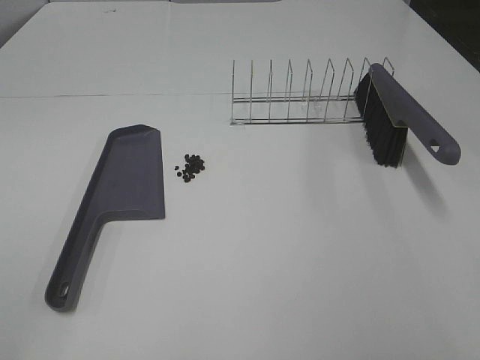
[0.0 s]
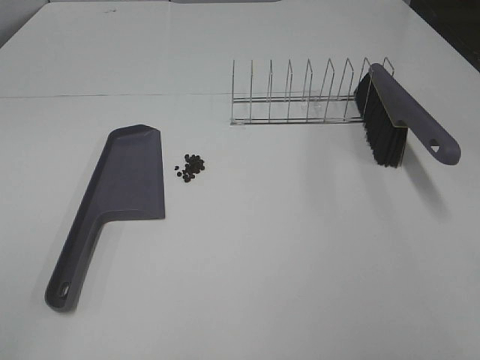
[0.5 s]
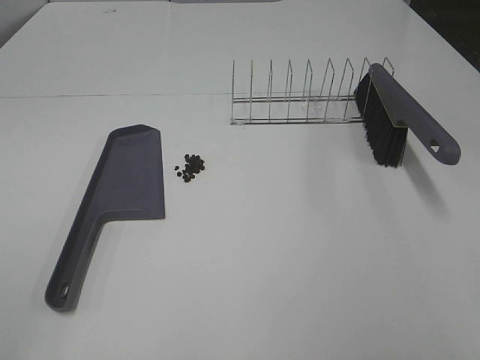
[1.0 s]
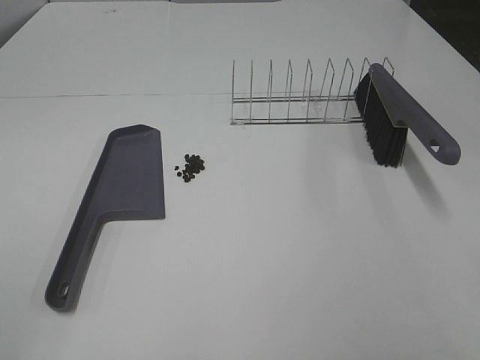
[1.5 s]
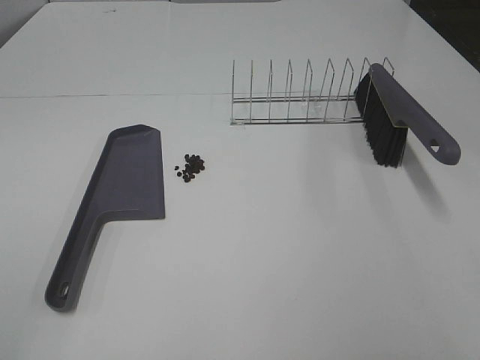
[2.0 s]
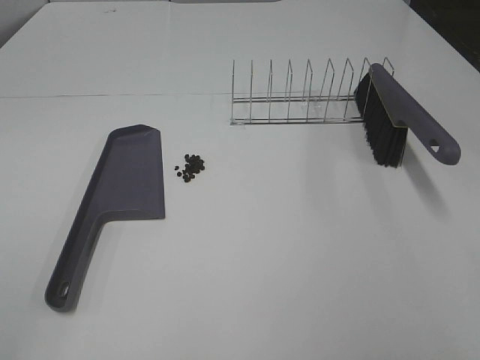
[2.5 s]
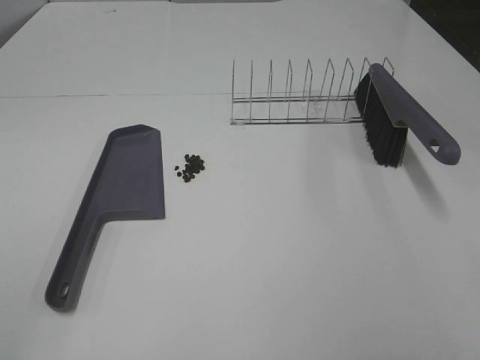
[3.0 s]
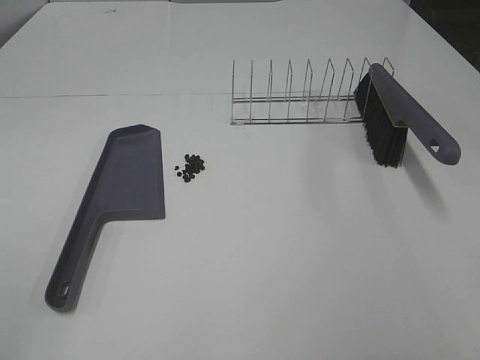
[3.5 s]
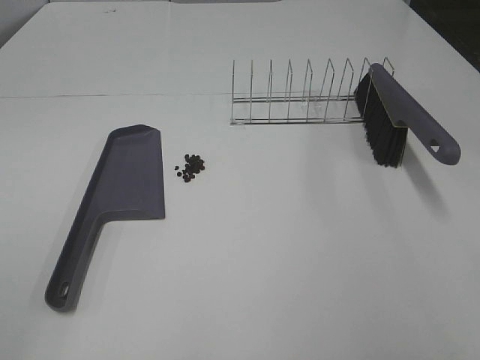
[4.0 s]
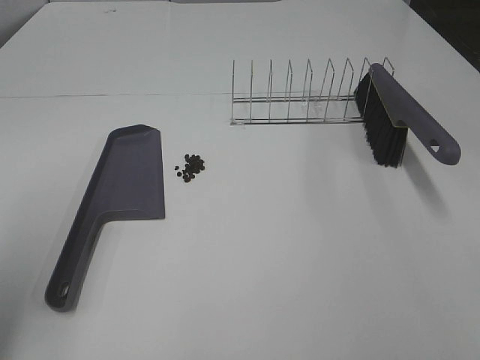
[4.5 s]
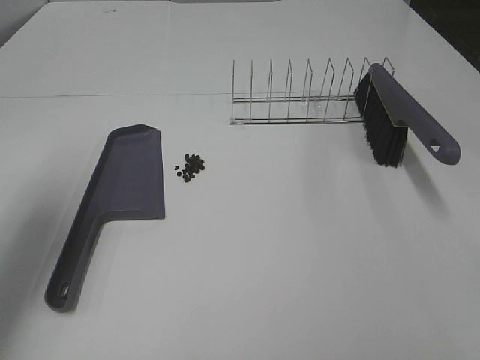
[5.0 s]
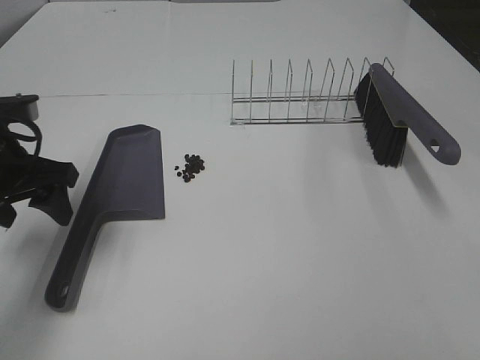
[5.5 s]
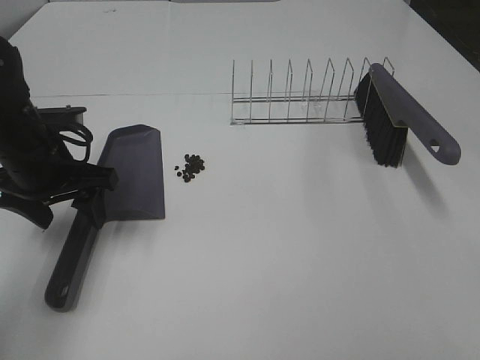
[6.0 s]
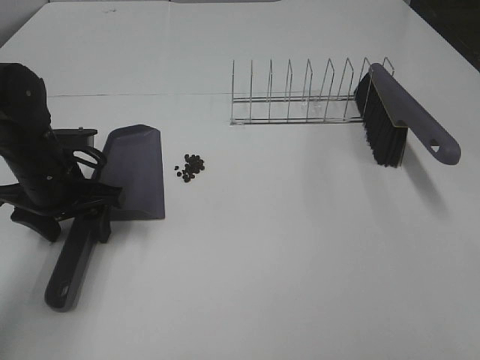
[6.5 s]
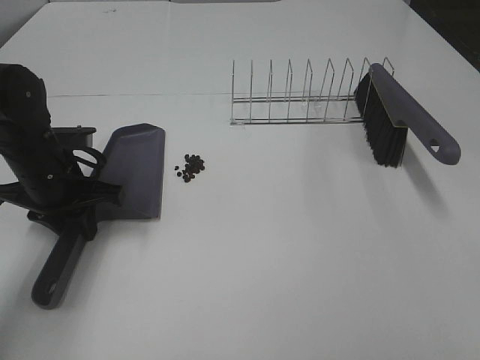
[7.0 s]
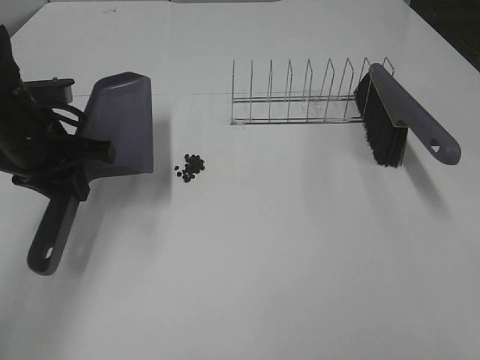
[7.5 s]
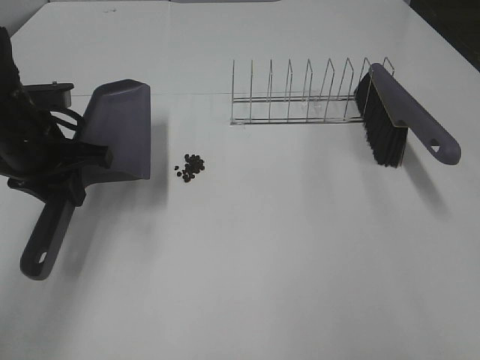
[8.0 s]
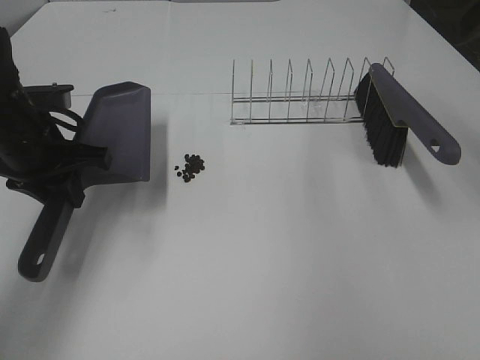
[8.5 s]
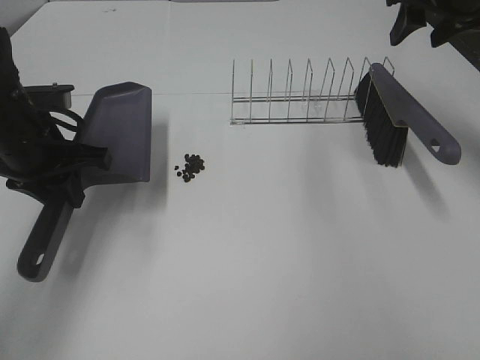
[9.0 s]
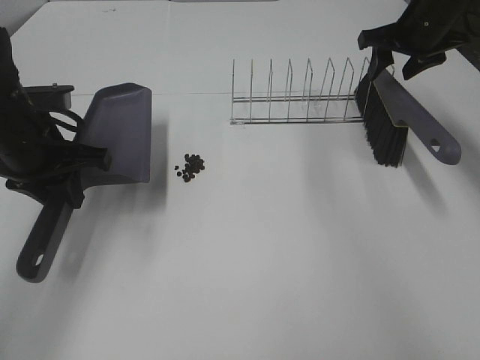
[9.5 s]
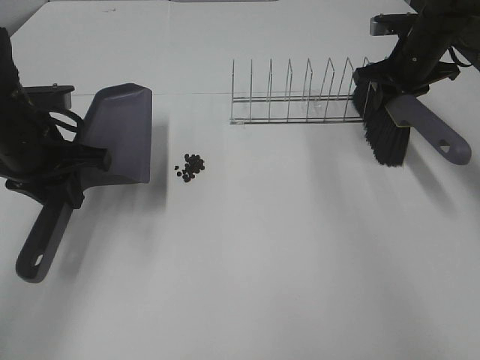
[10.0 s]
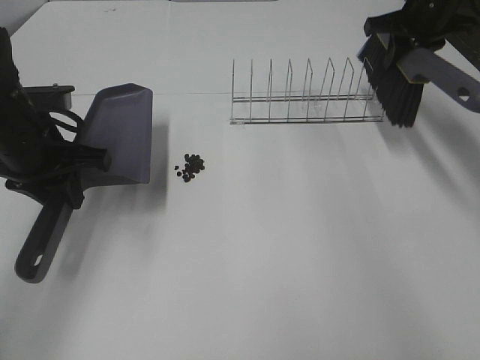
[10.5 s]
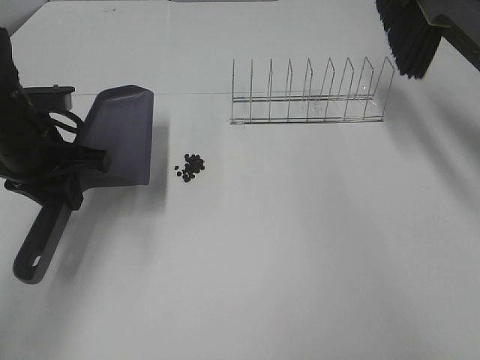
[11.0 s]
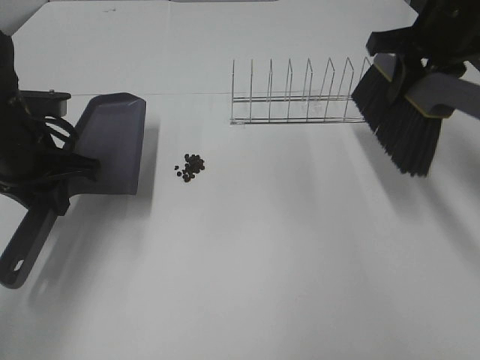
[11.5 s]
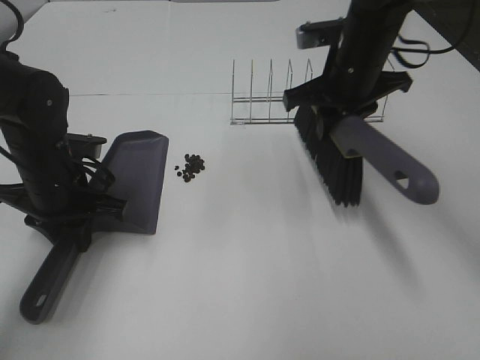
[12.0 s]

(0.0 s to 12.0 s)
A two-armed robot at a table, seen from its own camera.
Task of the whole recording: Sweep Coffee Bean.
Step, 0.0 s - 6.5 s: Left hand: grab the dustpan.
Step, 8.0 s - 10.0 s: Right hand:grab the broom.
0.0 s - 2.0 s: Neither gripper changes place.
4.0 s - 6.0 s: The left gripper shifts approximately 35 cm forward and downward.
6.0 s - 8.0 s: The left gripper closes up.
8.0 s - 10.0 s: The right gripper moves forward, about 40 cm, and closes up.
10.0 s - 12.0 s: The left gripper goes some 5 cm downward. The right gripper heads to the left and backward, covering roughly 15 cm, and travels upward and back again, approximately 15 cm each way.

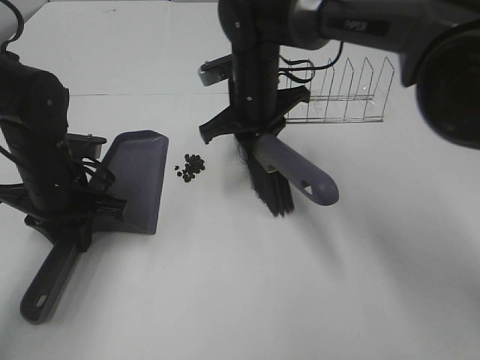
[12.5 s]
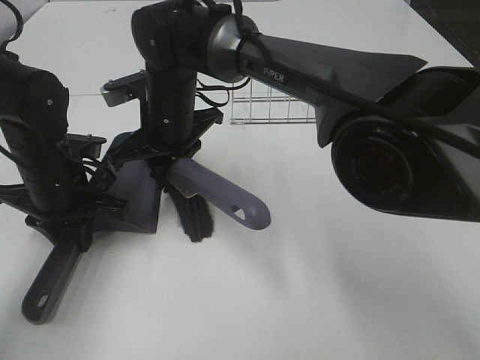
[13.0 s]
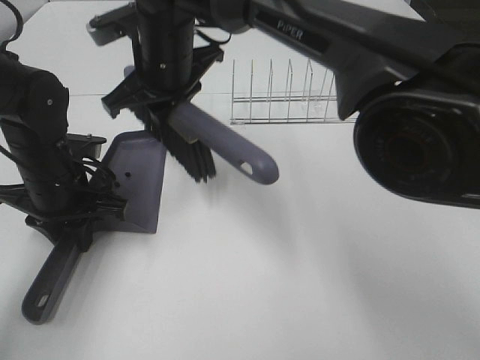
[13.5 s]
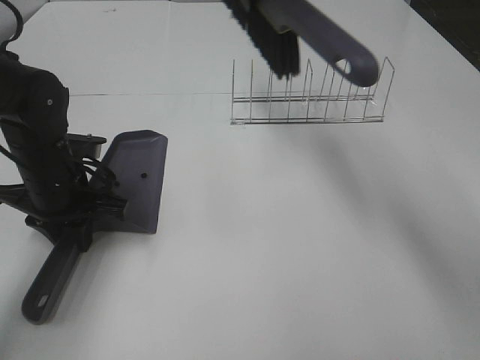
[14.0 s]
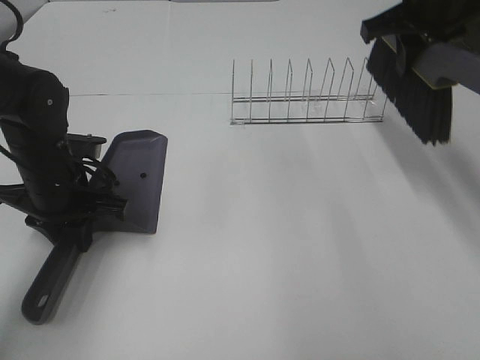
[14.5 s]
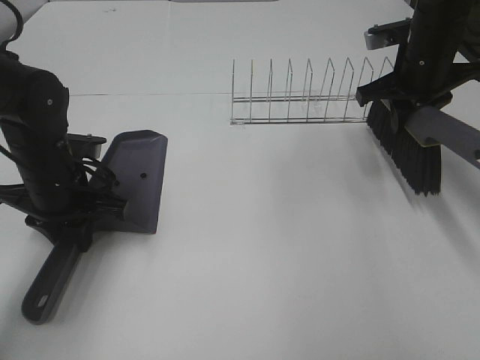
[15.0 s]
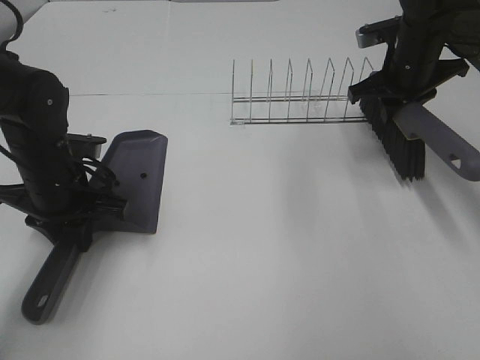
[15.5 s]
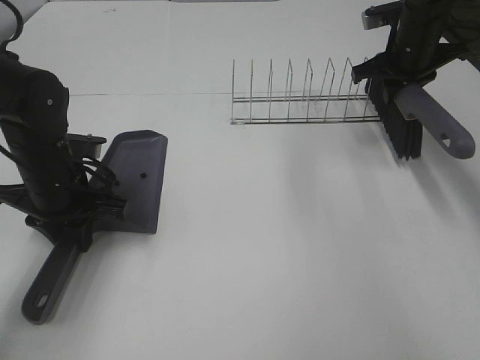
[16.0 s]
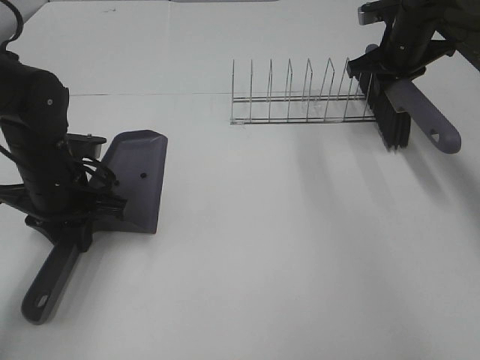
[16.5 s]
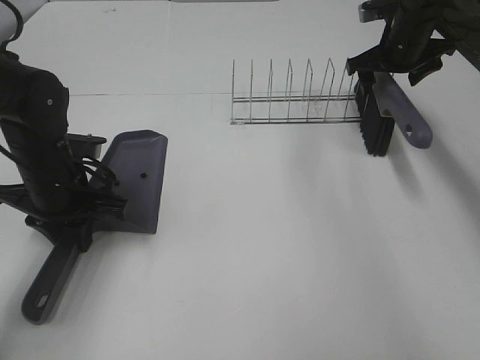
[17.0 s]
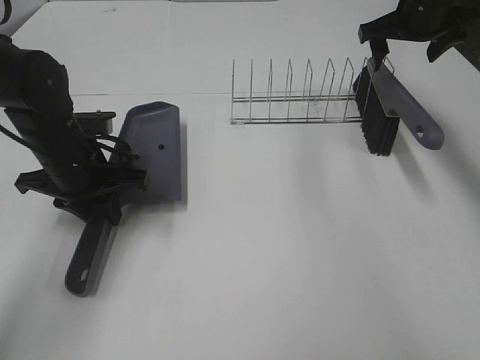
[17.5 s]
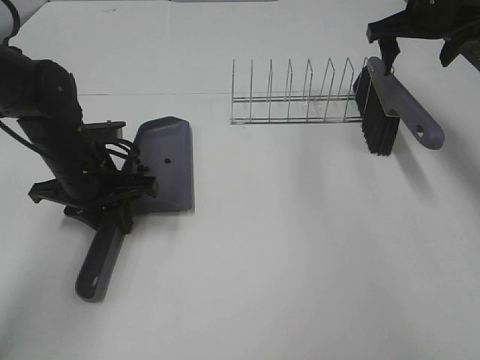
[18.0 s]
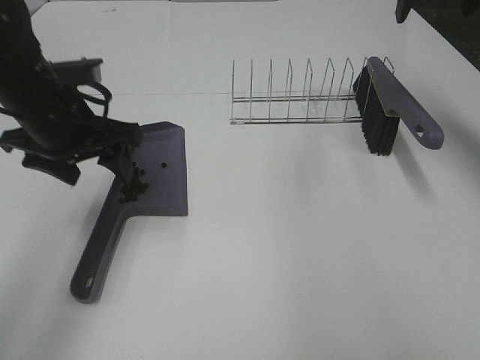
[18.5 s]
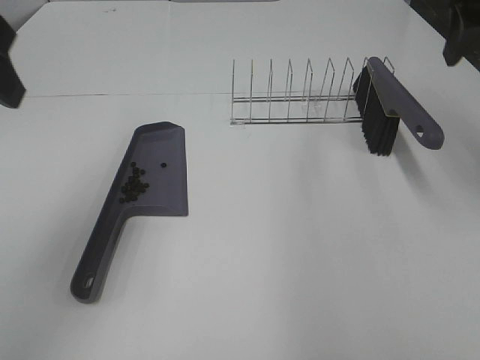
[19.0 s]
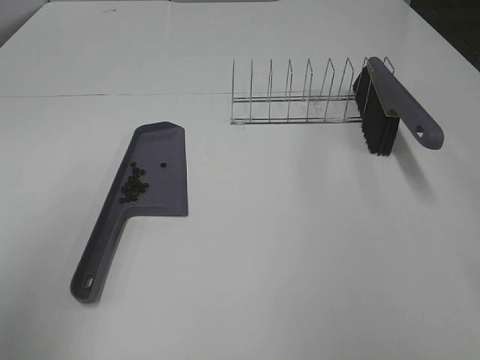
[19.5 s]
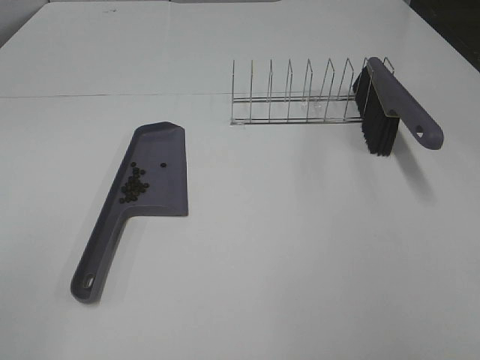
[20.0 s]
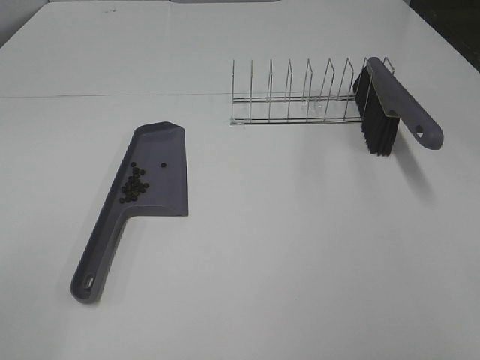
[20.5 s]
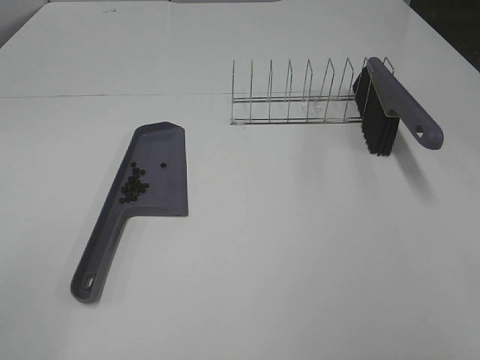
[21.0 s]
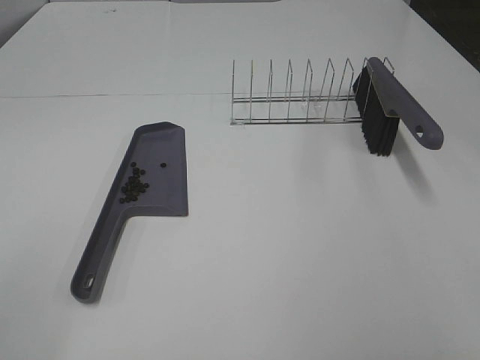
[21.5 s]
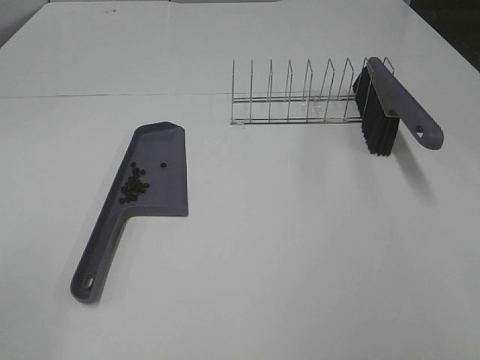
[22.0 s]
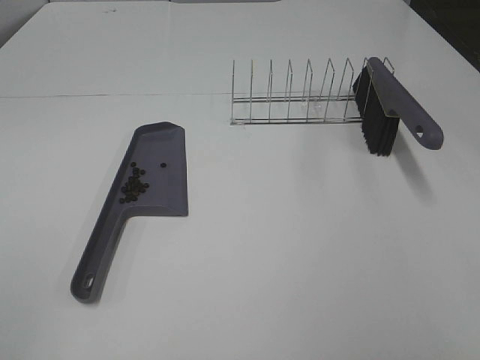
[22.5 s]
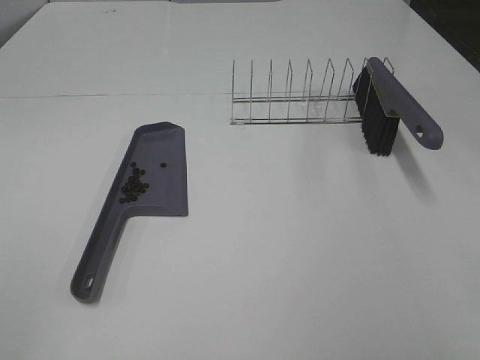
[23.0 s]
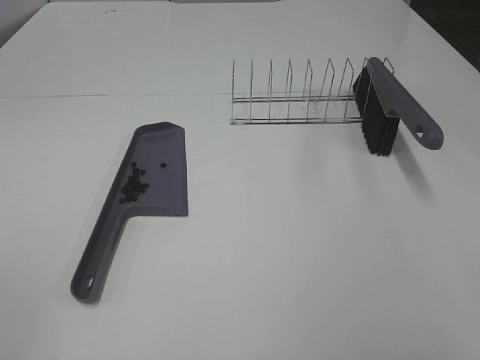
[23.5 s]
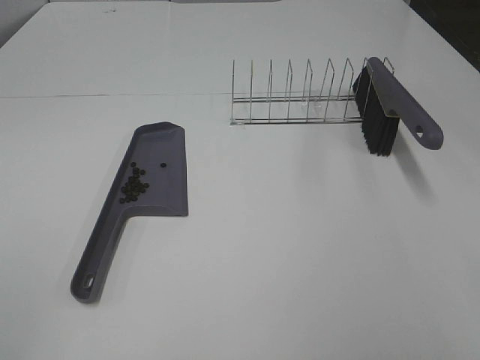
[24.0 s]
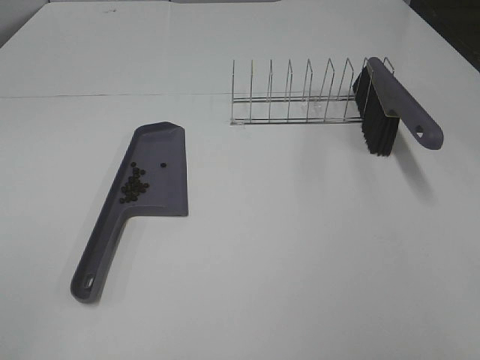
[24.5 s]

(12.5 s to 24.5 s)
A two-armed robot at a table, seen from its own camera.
Task of the whole recording: Sweep Coffee Bean.
Step, 14.0 s - 17.0 s: Right hand:place the broom on the rack.
Step, 17.5 s - 18.0 s: Left hand:place the dustpan on the table.
12.5 s - 14.5 s: The right gripper moves to the right and upward, roughly 25 cm.
14.5 s - 16.5 s: The right gripper travels downward and forward by roughly 15 cm.
16.5 s - 18.5 s: The left gripper heads upward, covering approximately 10 cm, and opens its fingers, while the right gripper heads upward and backward, covering approximately 20 cm, and opens up.
18.5 s - 20.5 s: The left gripper travels backward and to the left by roughly 35 cm, while the right gripper goes roughly 40 cm backward.
22.5 s - 24.5 s: The two grippers keep their place.
